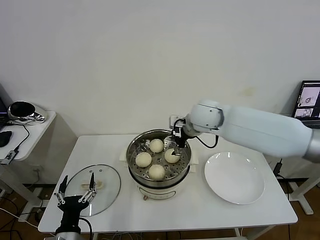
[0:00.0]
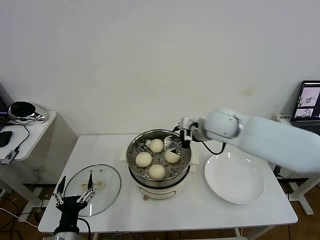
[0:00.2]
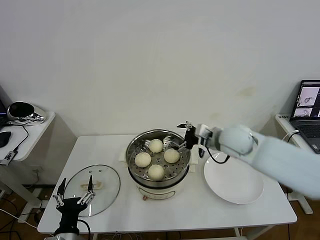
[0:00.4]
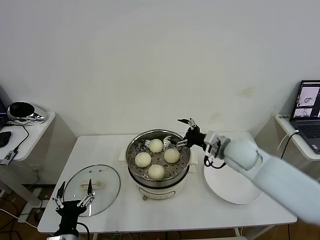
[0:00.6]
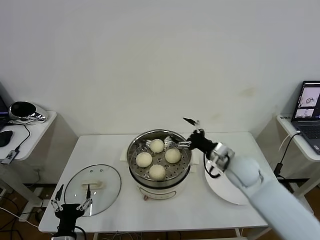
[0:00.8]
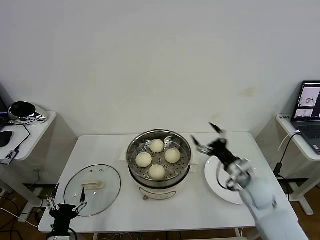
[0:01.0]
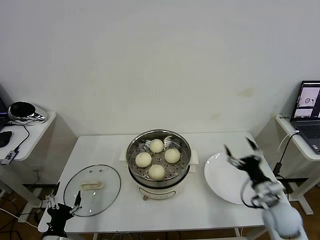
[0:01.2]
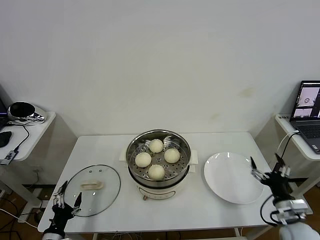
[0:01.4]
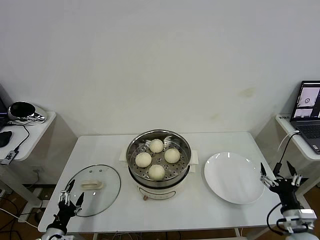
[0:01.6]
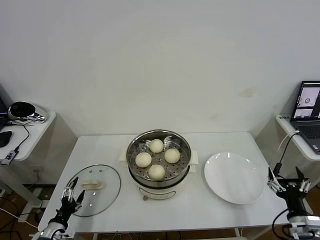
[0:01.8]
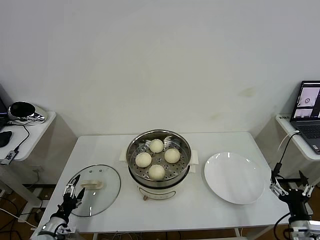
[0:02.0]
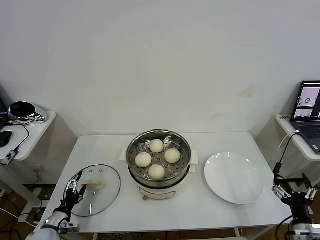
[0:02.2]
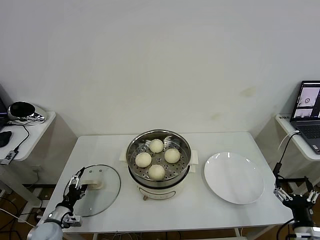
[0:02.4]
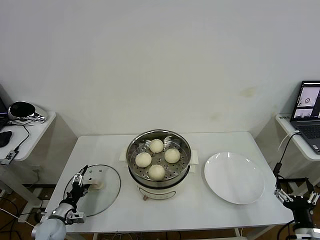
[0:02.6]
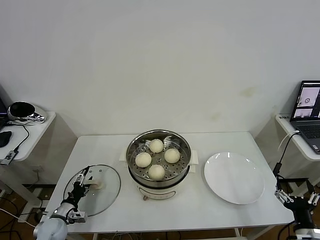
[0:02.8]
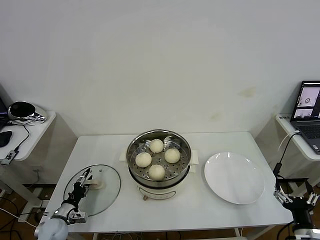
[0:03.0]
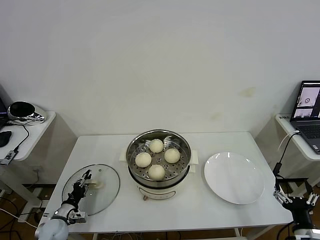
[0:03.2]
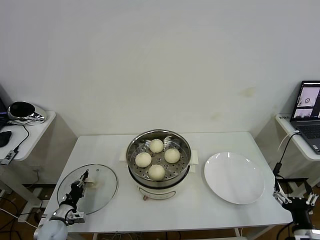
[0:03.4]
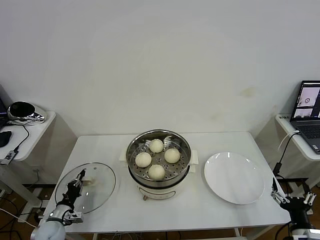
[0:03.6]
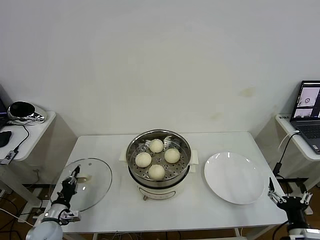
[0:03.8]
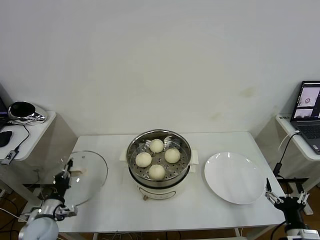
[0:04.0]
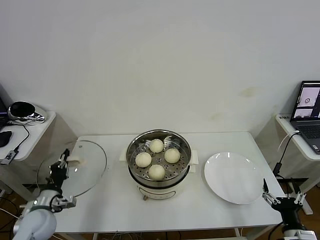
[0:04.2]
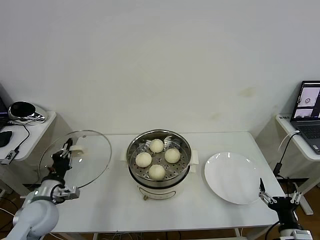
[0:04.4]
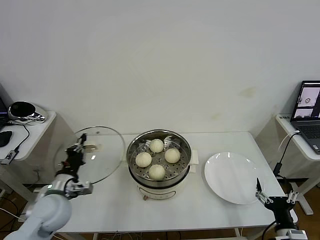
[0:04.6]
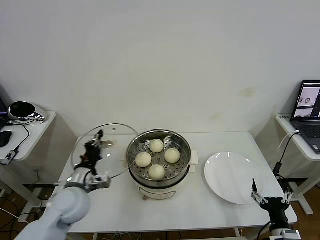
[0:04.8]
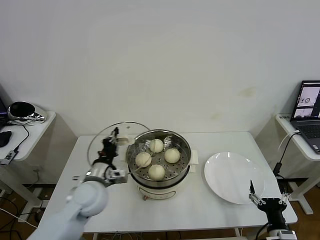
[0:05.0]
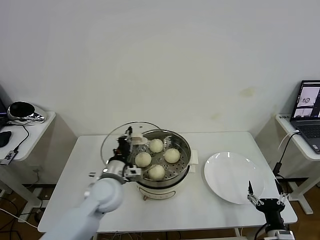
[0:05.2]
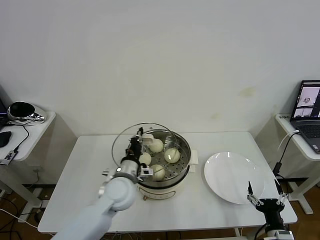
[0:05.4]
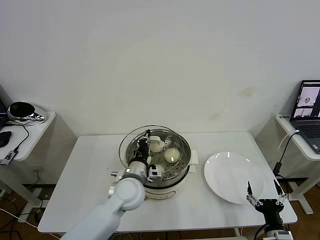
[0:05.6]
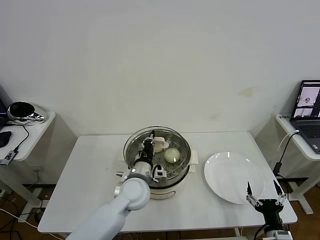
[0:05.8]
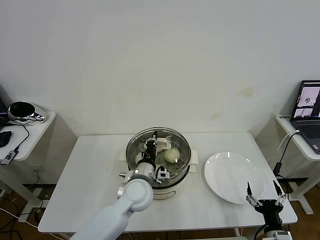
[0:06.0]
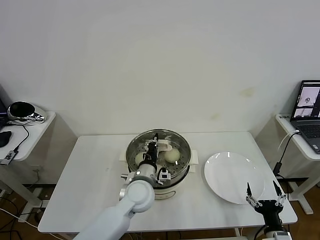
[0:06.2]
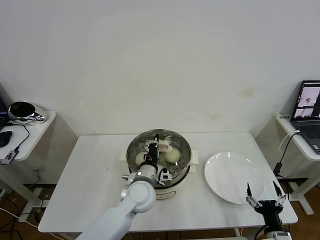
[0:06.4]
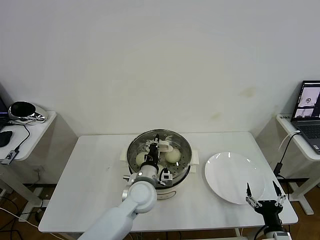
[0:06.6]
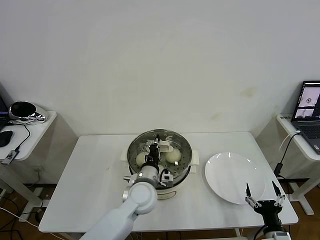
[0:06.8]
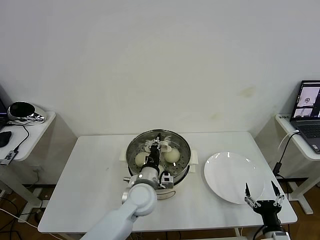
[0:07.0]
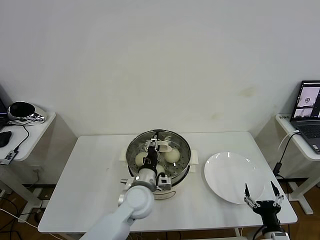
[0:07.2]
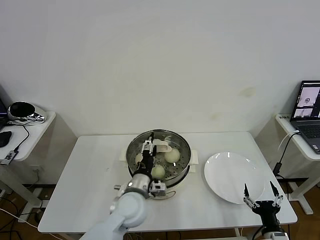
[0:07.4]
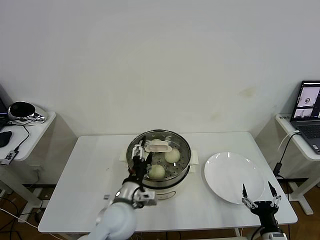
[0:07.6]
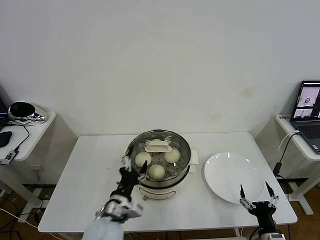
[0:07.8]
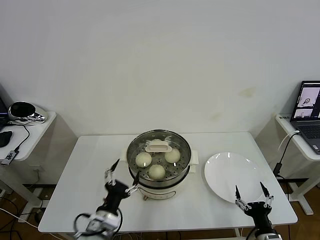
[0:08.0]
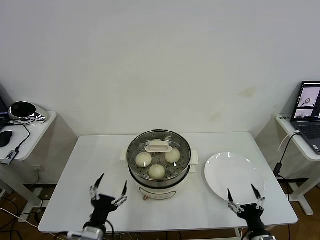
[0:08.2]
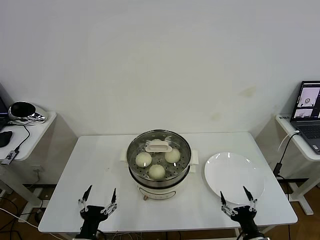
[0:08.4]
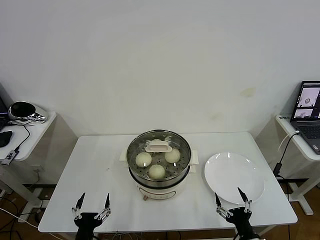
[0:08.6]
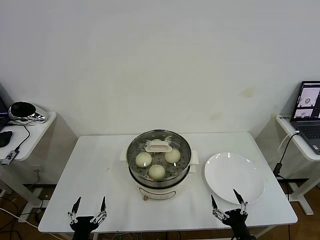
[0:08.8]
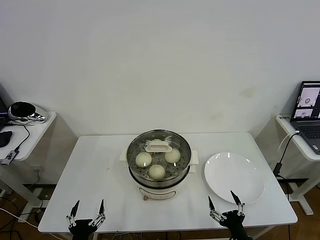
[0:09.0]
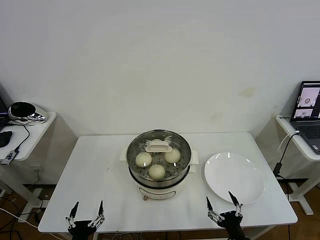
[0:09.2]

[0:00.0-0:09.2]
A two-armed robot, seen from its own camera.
Task of the whole recording: take steamed baozi put them in steamer then cover it.
Step, 0:00.0 to 0:03.4: Grasp the pot lid with left gripper.
Step, 0:03.6 to 0:07.2: Place the pot lid on the steamer with left gripper.
0:00.0 to 0:01.6: The right gripper heads backward, to the right and downward, covering some 50 cm; the left gripper shifts roughly 15 cm to the left and downward.
0:01.6 to 0:03.0: The left gripper goes approximately 10 cm forward, and closes. Meanwhile the right gripper is displaced backward by roughly 5 cm.
0:03.0 to 0:04.6: The left gripper travels upward and to the right by about 20 cm, and closes.
0:04.6 to 0:06.2: The left gripper travels to the right by roughly 25 cm.
0:06.2 to 0:07.6: The left gripper moves backward, about 5 cm, and opens its fingers.
0:07.6 to 0:09.2: The left gripper is displaced backward, to the left and downward by roughly 25 cm, while the right gripper shifts approximately 10 cm to the left.
